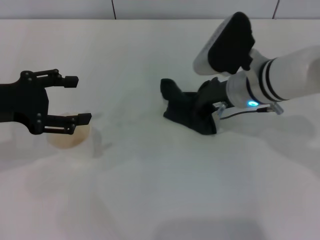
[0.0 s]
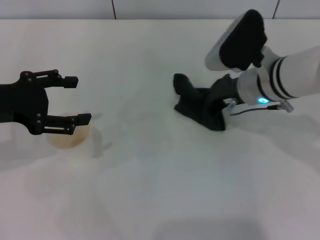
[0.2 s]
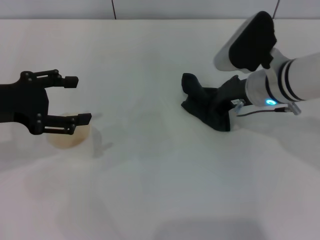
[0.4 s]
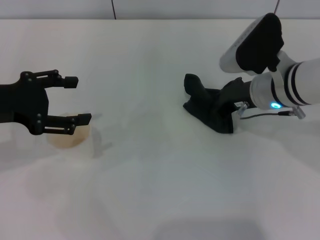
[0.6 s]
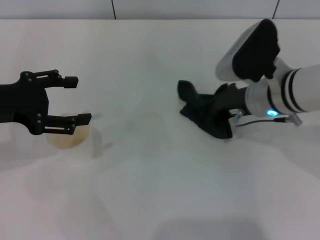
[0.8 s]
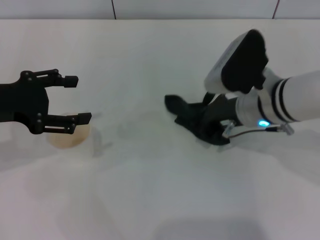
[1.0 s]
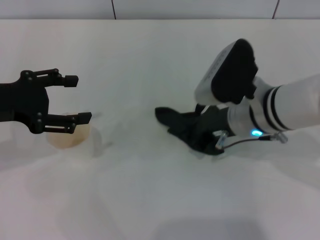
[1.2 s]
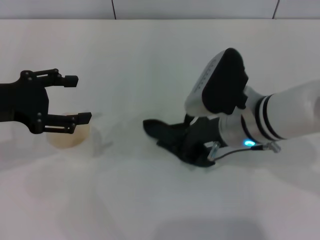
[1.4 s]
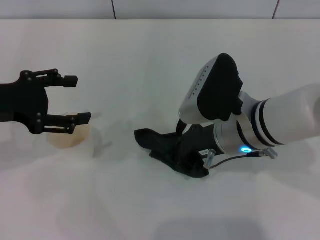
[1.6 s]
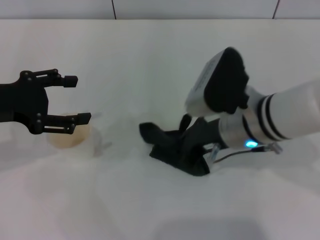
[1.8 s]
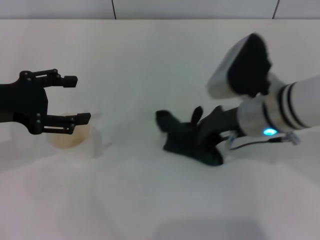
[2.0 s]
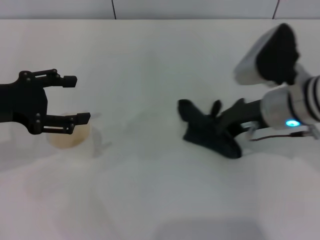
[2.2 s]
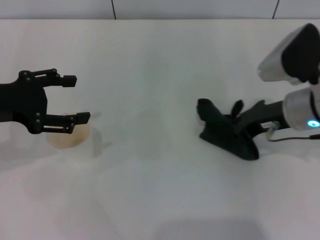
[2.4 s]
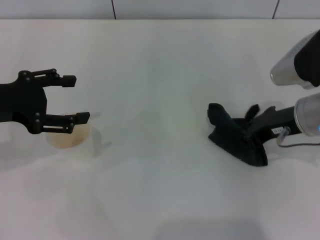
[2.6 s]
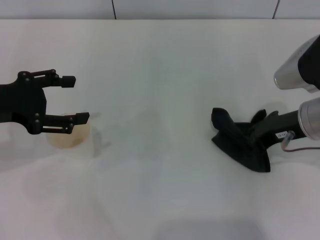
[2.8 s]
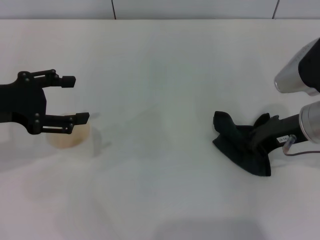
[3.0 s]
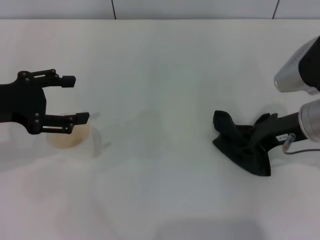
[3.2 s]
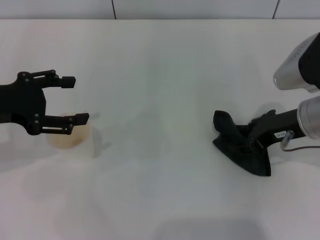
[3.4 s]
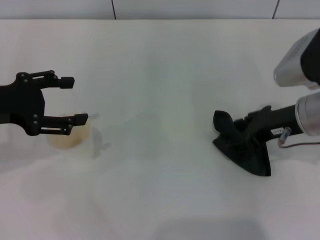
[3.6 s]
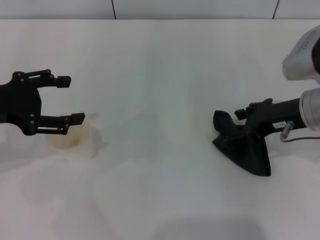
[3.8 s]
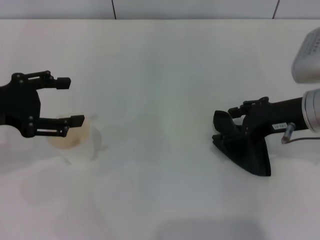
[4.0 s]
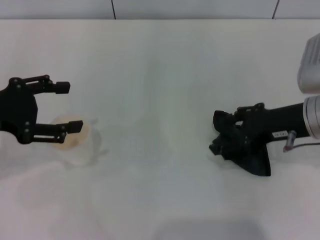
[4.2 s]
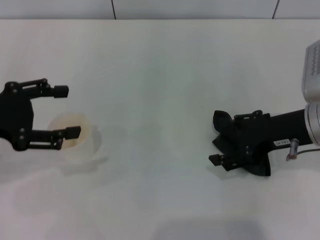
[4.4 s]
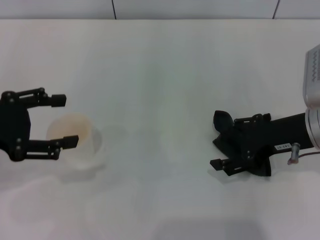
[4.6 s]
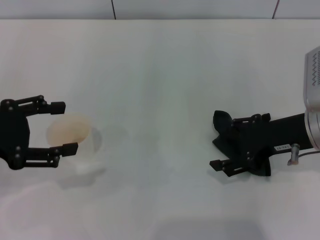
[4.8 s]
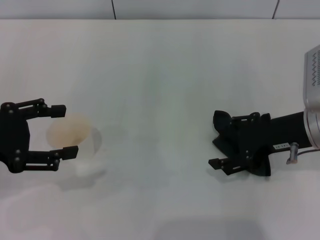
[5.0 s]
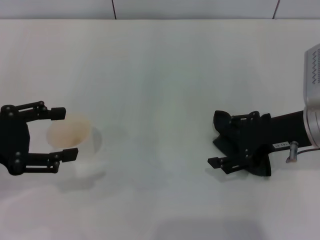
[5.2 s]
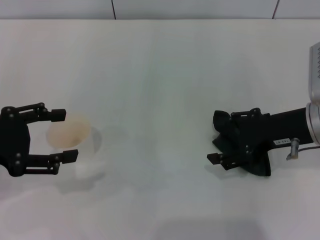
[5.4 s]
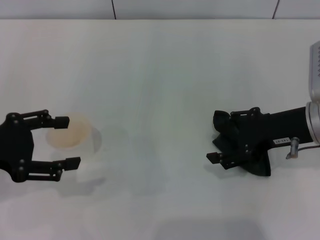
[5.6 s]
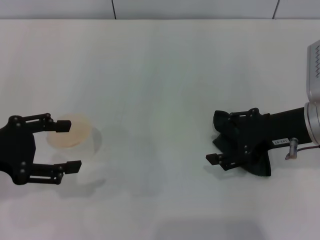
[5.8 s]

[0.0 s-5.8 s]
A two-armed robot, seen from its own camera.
Step, 0.4 to 4.2 s: Place the rag on the table with the right gripper.
0.0 to 1.4 s: The right gripper shifts approximately 5 cm backward.
1.4 to 2.8 s: The right gripper goes approximately 10 cm to the right.
2.8 to 4.4 s: The right gripper opens its fingers.
4.4 to 5.8 s: The grippers make only small movements.
